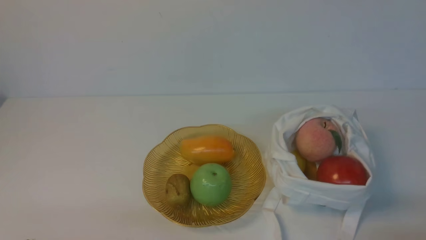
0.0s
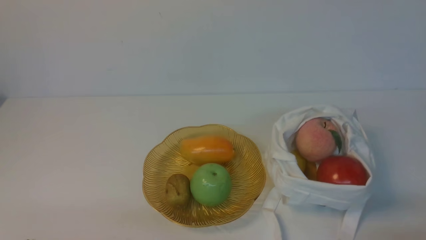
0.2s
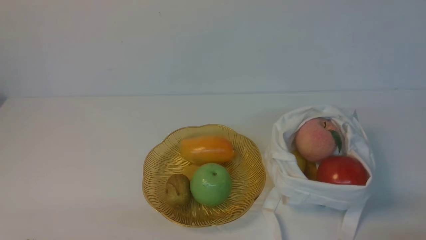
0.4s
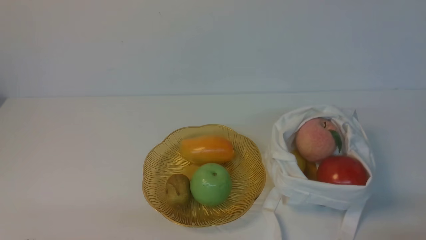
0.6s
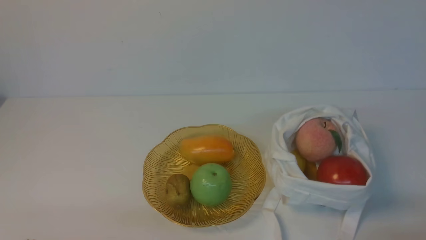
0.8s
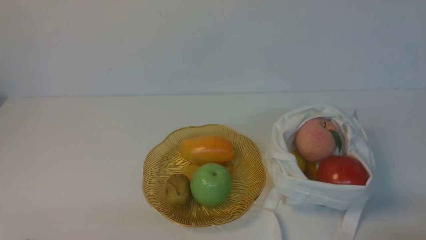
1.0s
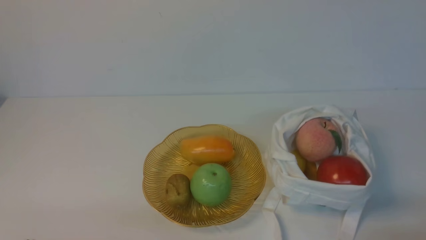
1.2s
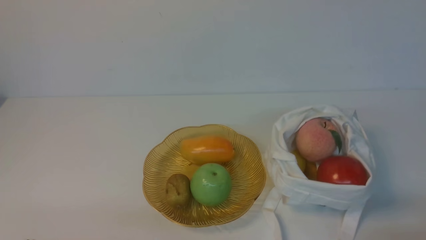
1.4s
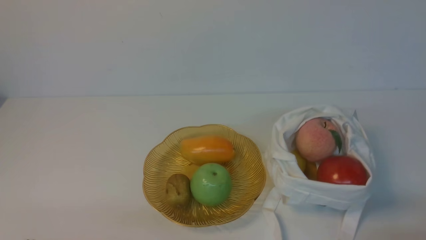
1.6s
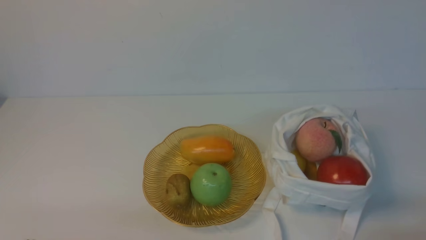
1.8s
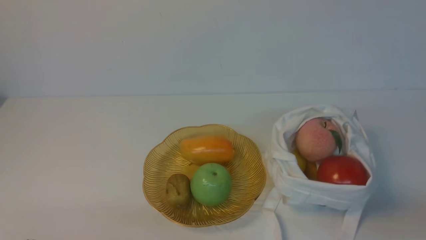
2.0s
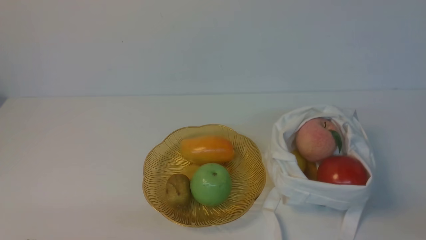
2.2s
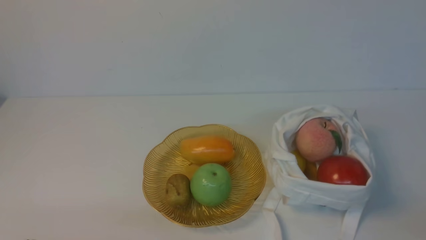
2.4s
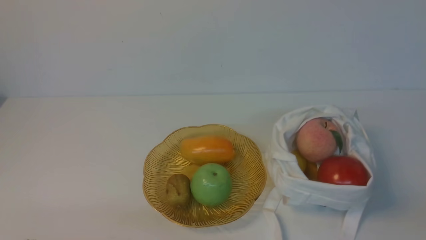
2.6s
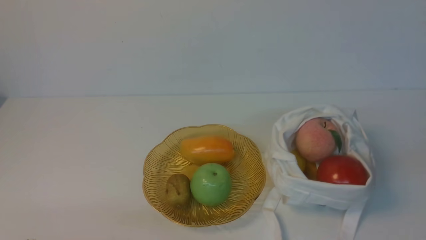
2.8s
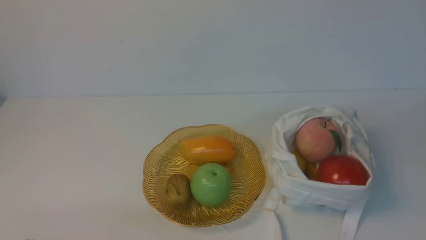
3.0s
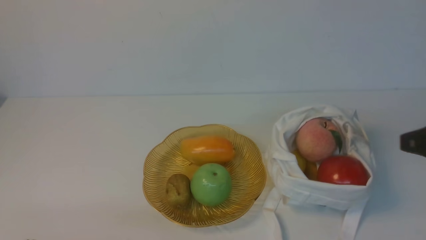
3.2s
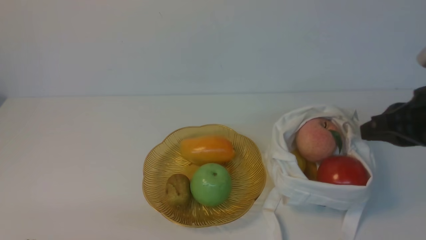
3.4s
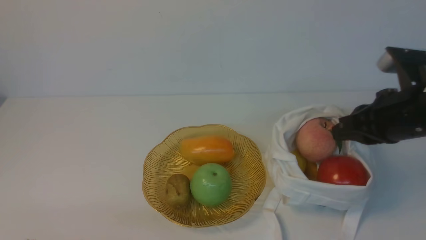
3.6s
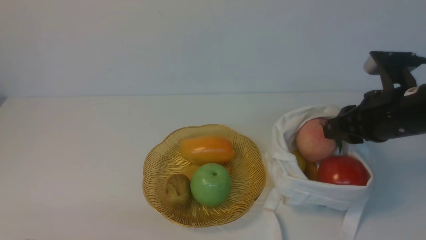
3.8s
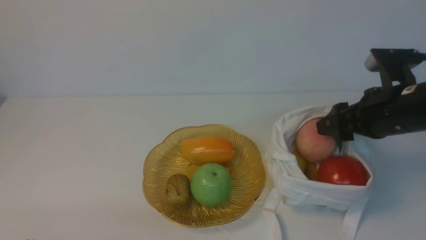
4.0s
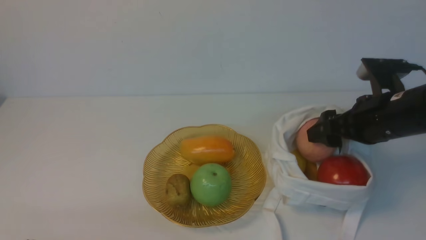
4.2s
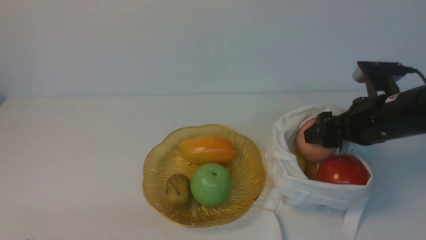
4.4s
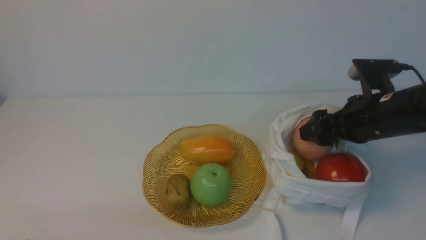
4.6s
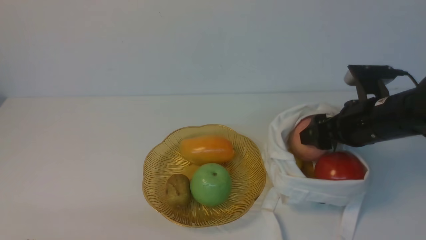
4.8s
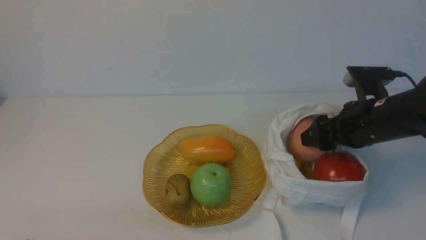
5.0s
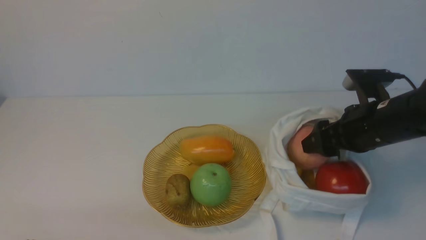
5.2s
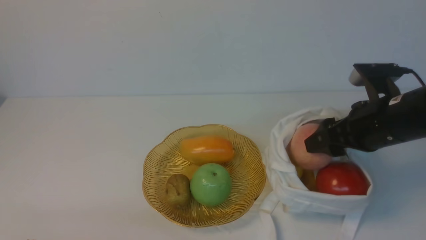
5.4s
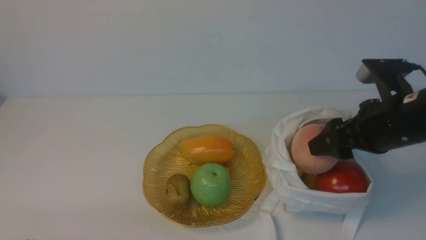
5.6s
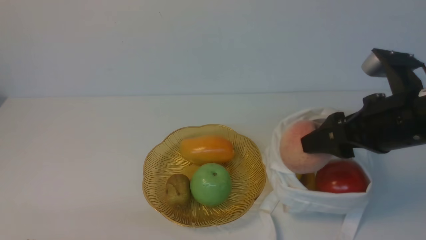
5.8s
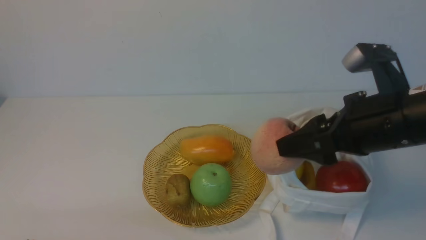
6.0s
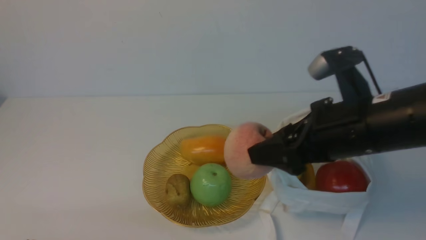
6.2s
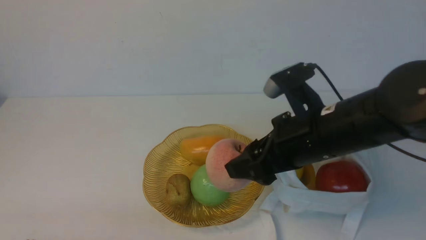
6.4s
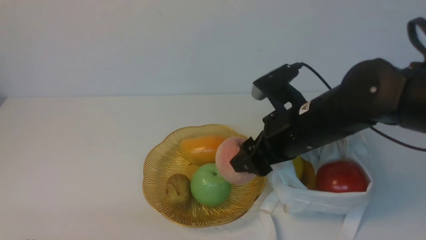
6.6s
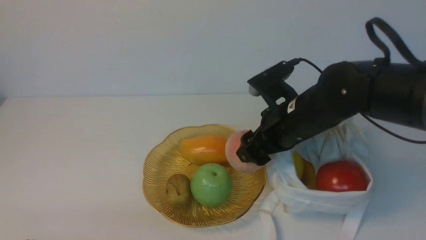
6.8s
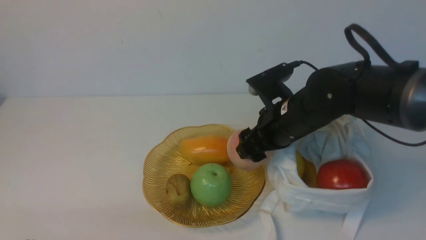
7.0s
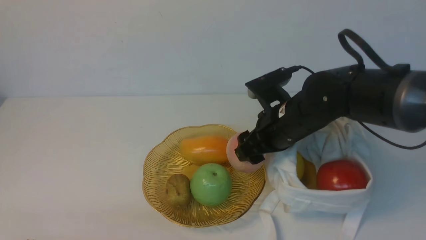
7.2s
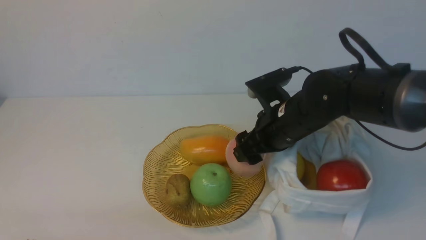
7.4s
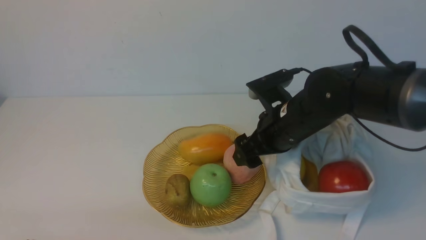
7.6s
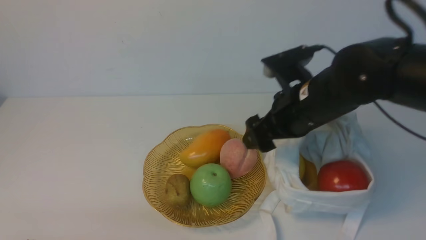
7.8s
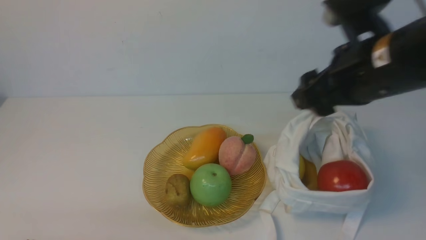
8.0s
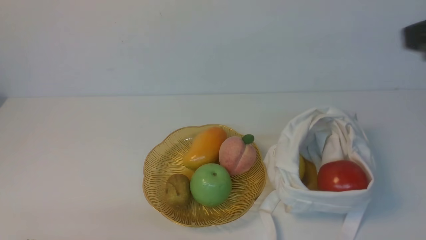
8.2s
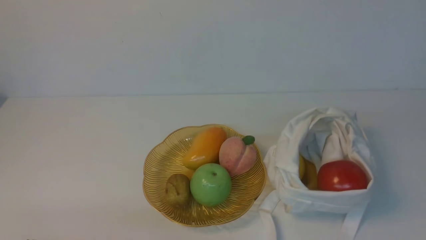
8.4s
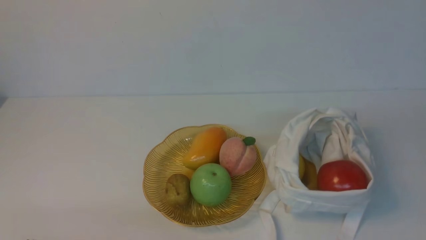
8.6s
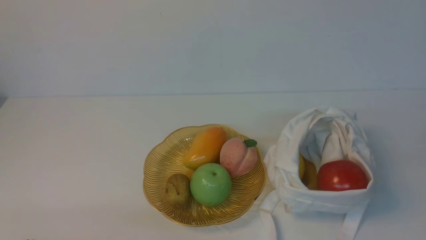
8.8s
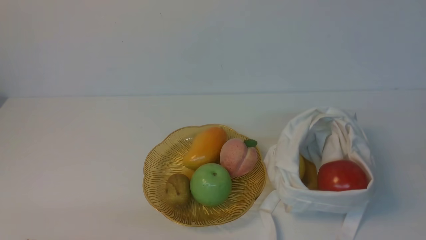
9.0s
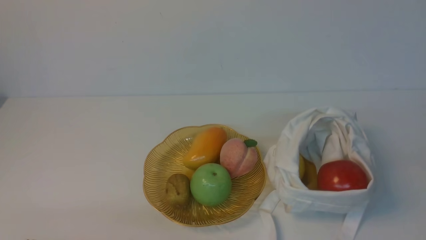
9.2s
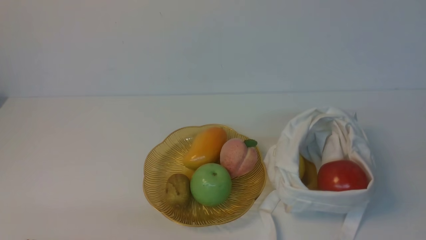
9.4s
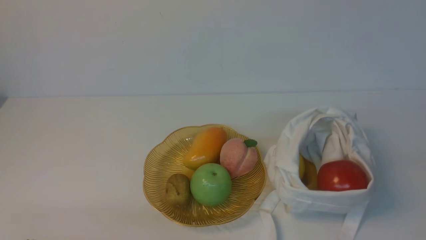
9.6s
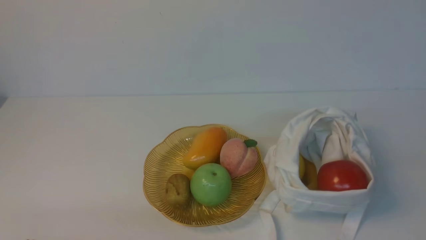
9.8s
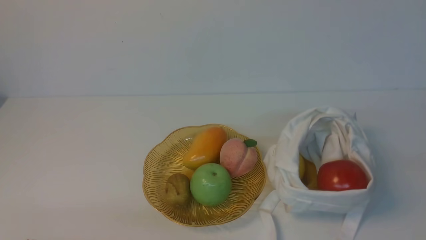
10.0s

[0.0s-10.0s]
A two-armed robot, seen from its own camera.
Step, 0.0s to 5.4s: use the right arm to grab a peach from the bag.
Step, 5.6s to 7.4s: use the right arm to put the peach into the empty plate on the left.
0.0s to 1.4s: Both grippers stay about where they are.
2.8s to 4.2s: The right gripper travels forward by roughly 25 cm, and opens.
4.2s to 5.8s: The right gripper heads backward and upward, covering approximately 5 cm.
5.8s to 7.2s: The right gripper moves to the left, forward and downward, approximately 15 cm.
7.2s to 8.6s: The right gripper is displaced backward, to the right and upward by approximately 40 cm, and closes its fingers.

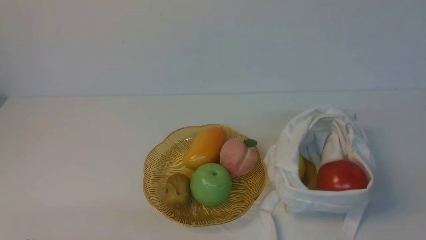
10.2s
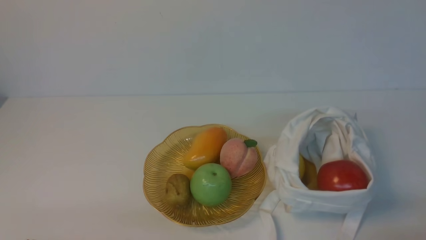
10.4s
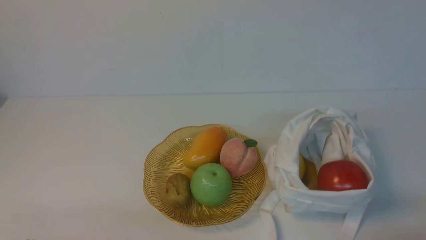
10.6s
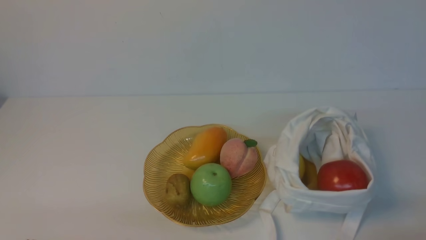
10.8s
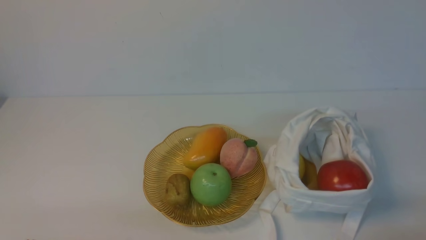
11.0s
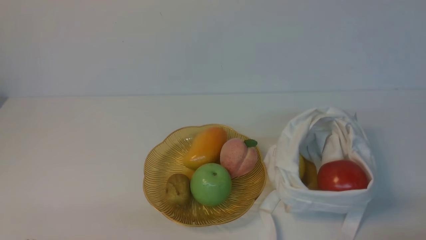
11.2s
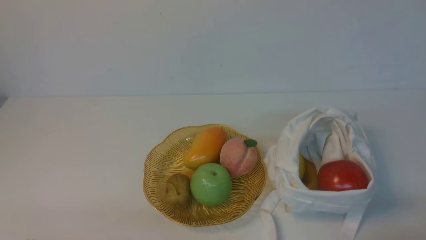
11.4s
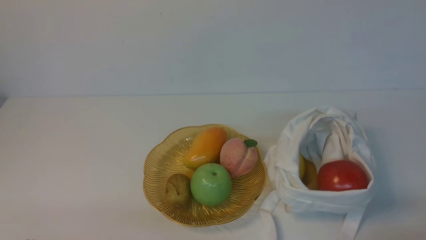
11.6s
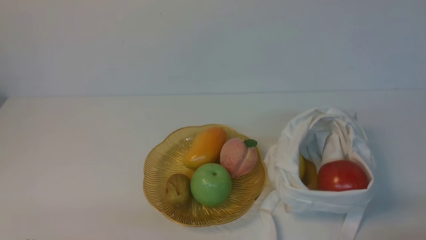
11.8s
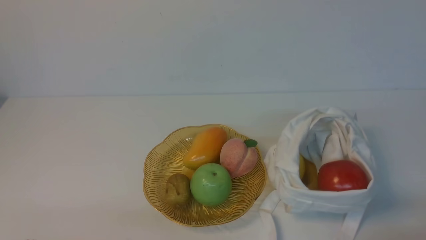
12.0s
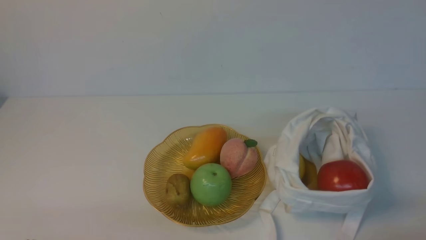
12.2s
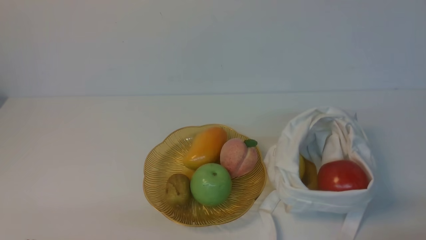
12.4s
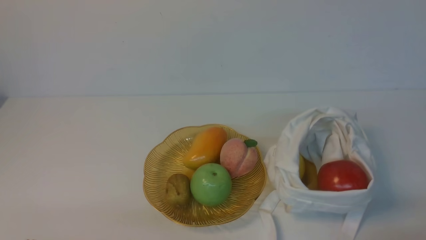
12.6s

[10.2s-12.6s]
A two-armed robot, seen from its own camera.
11.4s to 12.6s: Both grippers stay put.
